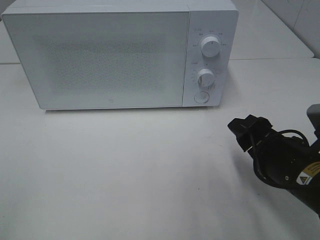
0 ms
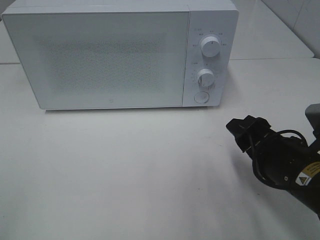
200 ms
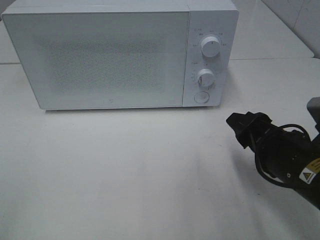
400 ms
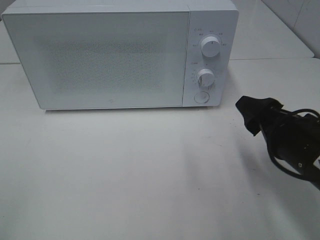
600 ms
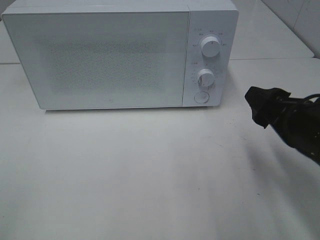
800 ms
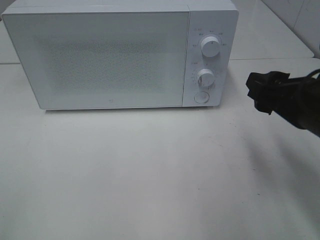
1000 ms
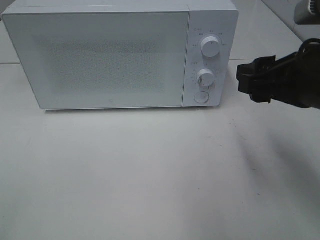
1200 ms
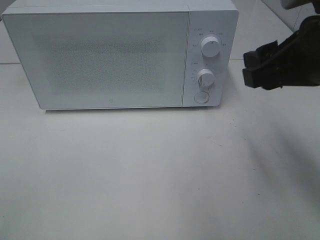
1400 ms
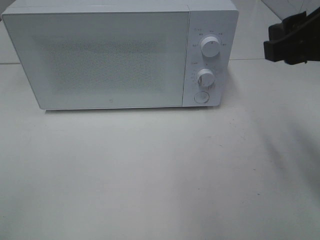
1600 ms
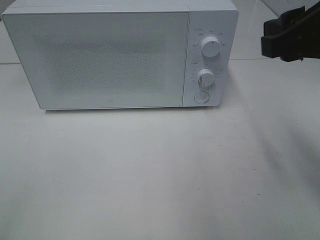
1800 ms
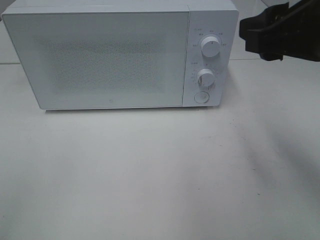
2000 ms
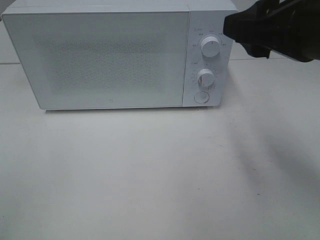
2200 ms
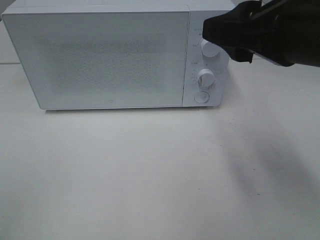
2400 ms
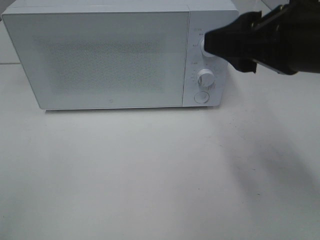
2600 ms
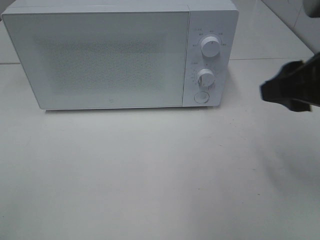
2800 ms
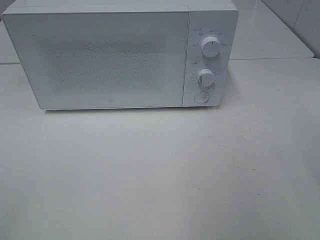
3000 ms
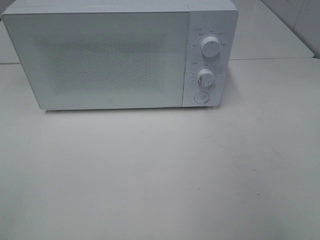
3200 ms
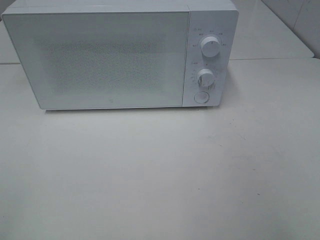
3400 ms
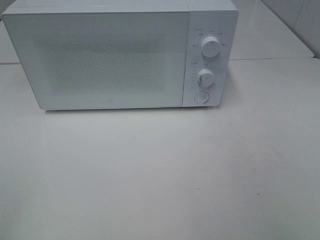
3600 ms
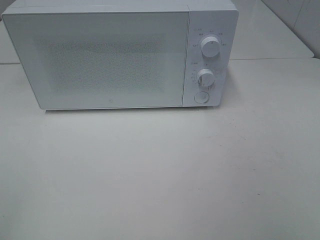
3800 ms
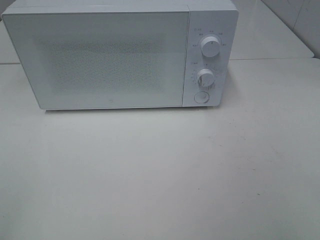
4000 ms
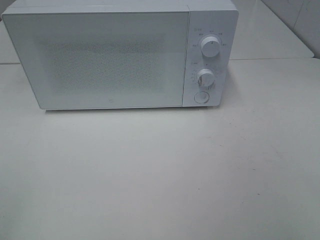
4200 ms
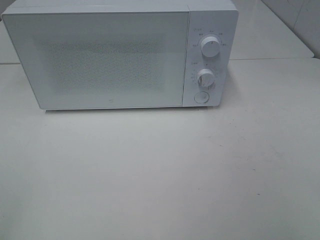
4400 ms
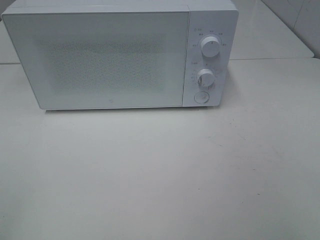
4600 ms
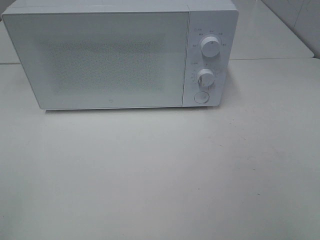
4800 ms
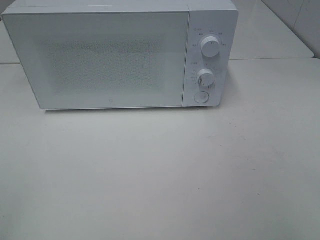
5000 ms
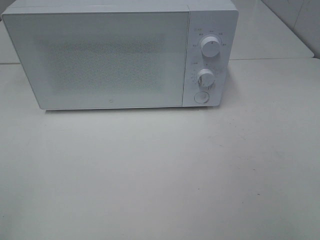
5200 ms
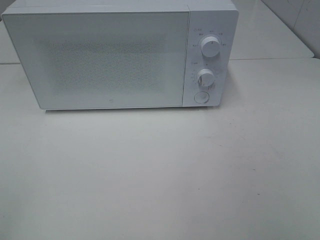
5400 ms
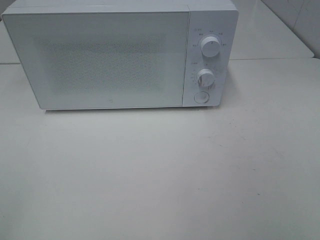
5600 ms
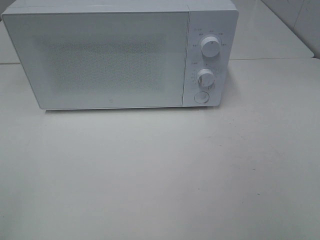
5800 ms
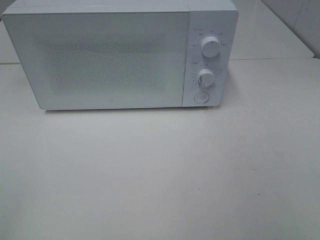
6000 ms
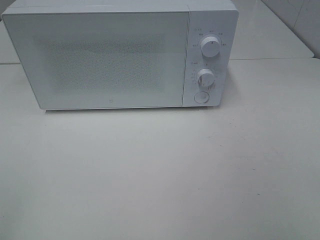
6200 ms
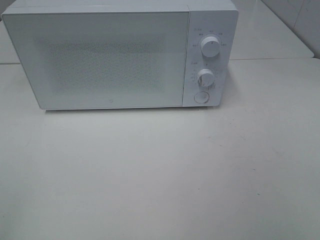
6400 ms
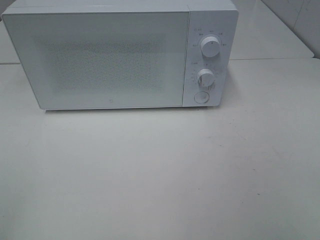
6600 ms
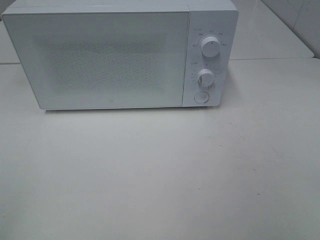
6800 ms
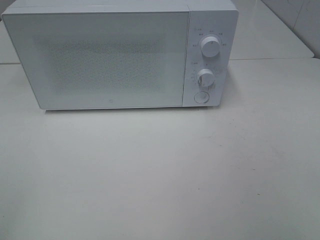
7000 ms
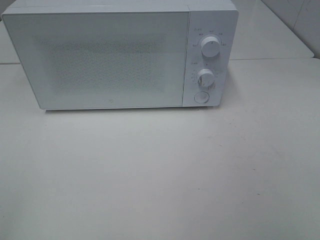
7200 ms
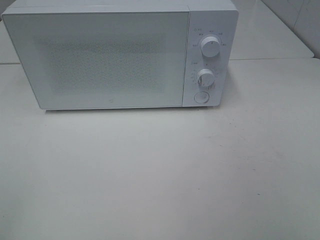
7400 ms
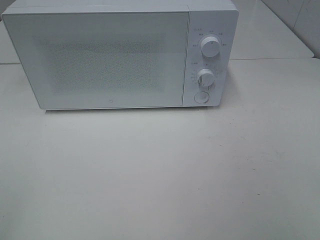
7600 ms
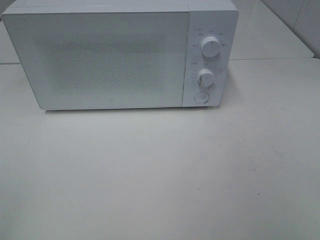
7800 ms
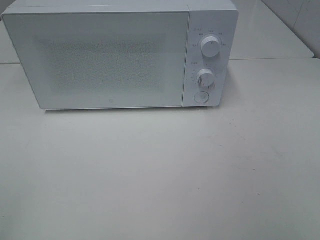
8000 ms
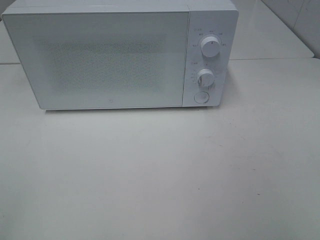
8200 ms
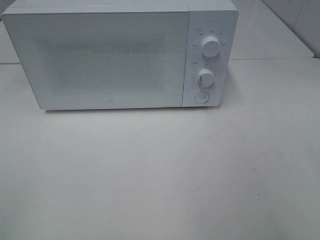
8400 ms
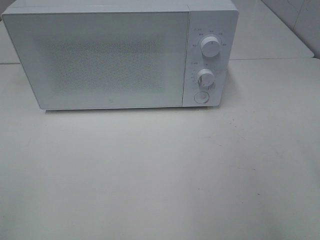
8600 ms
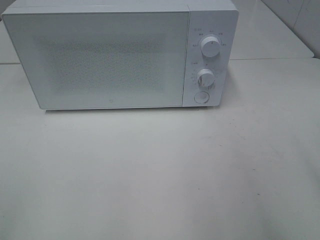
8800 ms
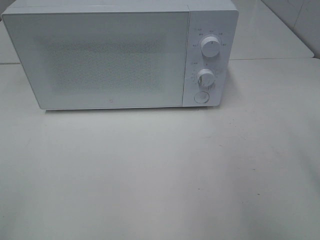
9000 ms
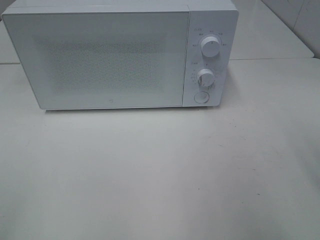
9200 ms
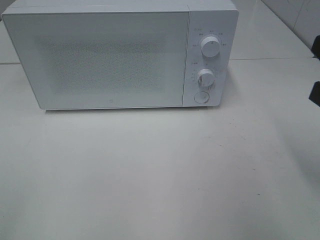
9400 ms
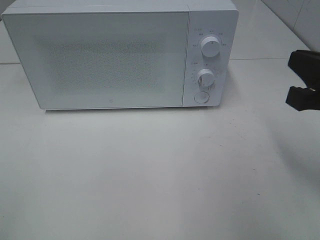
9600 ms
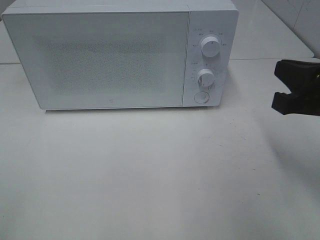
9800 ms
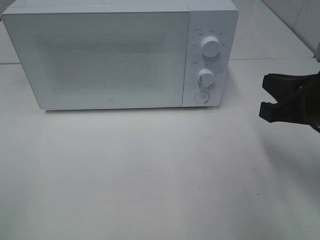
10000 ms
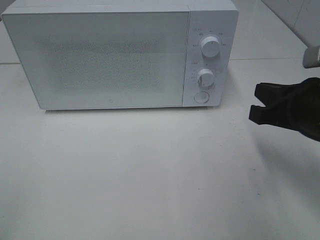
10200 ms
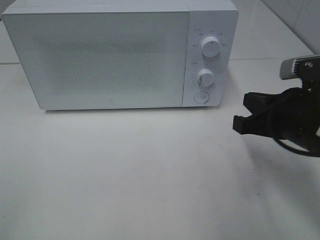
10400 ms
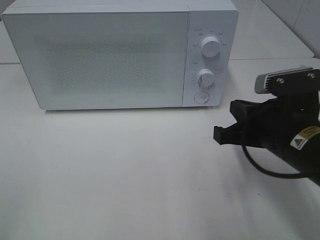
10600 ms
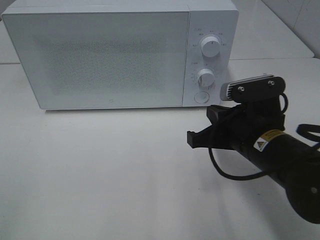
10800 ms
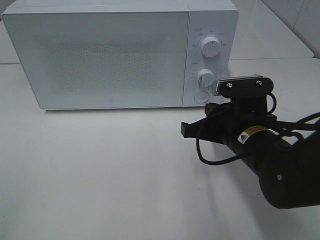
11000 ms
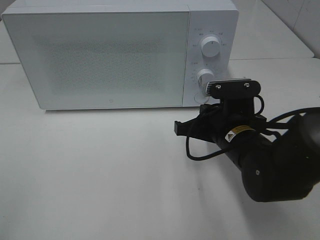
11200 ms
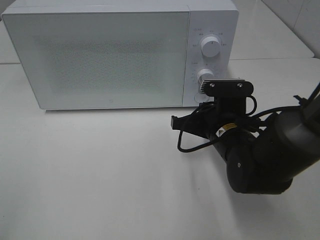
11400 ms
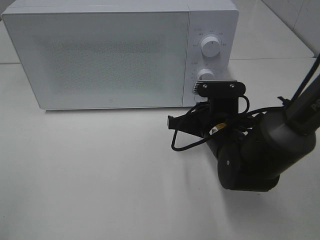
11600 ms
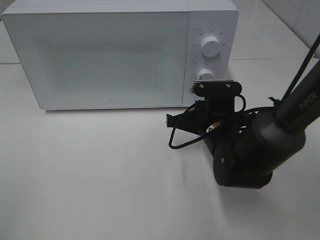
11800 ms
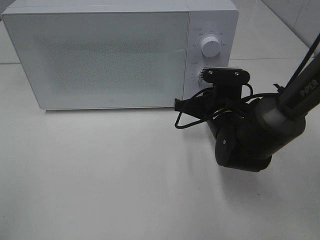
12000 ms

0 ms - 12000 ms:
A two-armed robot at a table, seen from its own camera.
Task of the whole recording: Heat Sandwich.
0 ms - 1600 ms: The right gripper goes about 20 cm upward.
1600 ms - 3000 ms: The right gripper changes place by approximately 5 cm, and closes its fingers.
6000 ms - 7600 ms: Neither gripper changes place.
9000 ms - 10400 ms: The right gripper shifts roughly 15 cm downward, forward and to the left, and closes.
10400 ms - 12000 ms: The right gripper moves forward, downward and to the left, approximately 15 cm.

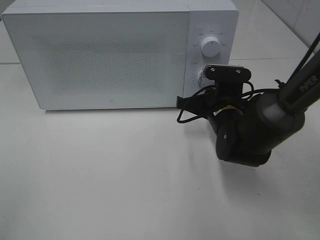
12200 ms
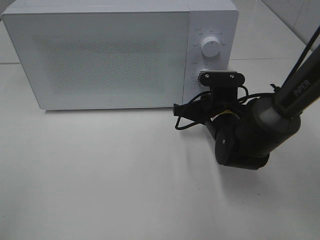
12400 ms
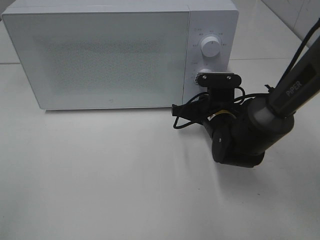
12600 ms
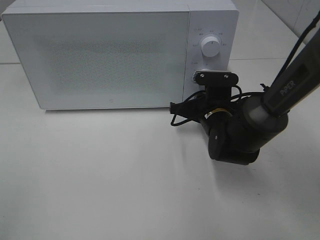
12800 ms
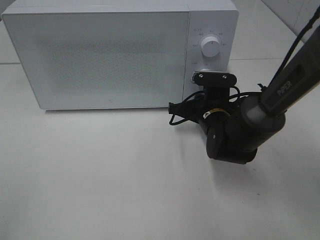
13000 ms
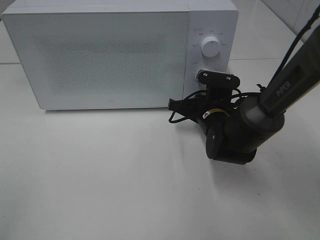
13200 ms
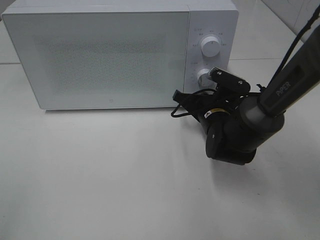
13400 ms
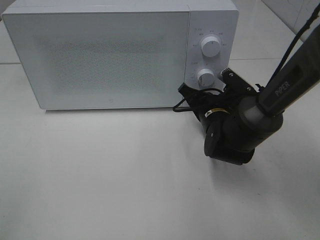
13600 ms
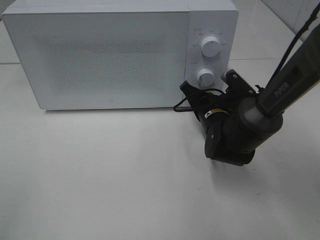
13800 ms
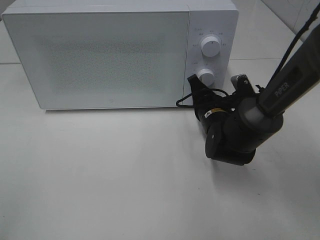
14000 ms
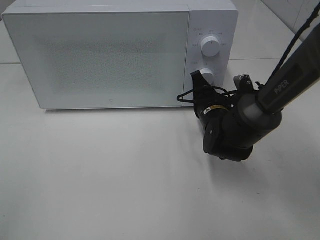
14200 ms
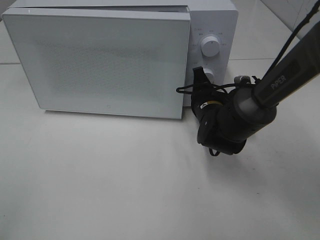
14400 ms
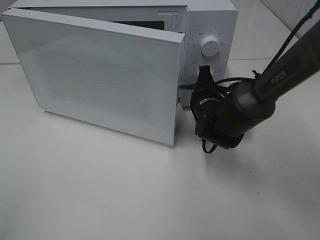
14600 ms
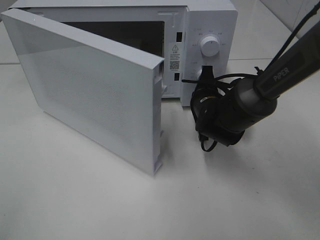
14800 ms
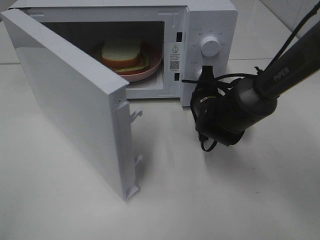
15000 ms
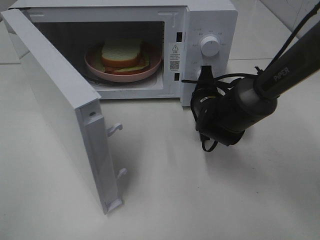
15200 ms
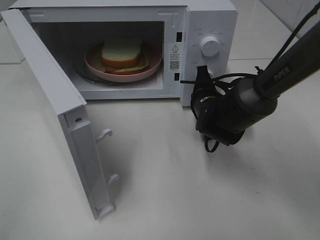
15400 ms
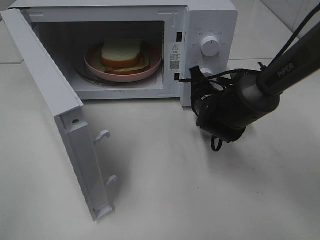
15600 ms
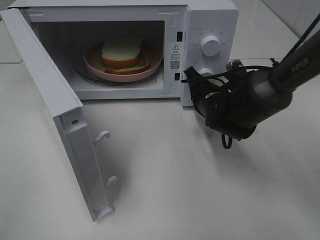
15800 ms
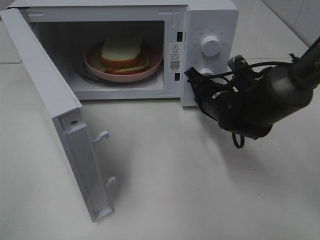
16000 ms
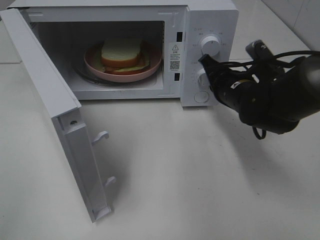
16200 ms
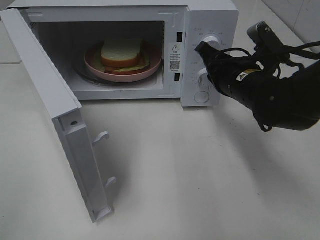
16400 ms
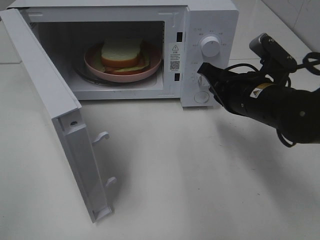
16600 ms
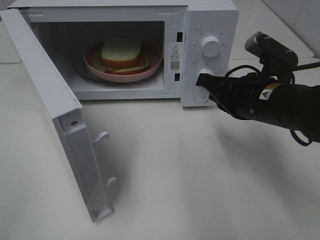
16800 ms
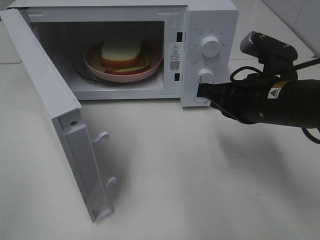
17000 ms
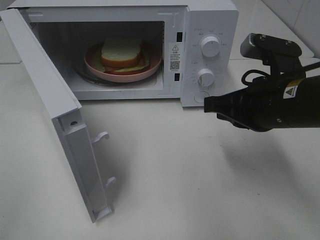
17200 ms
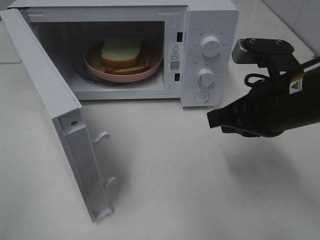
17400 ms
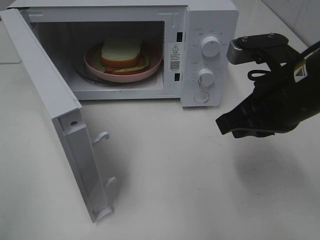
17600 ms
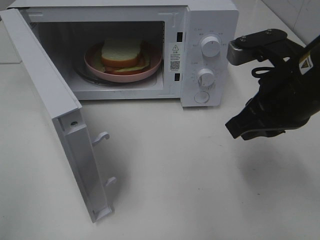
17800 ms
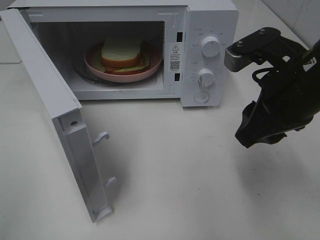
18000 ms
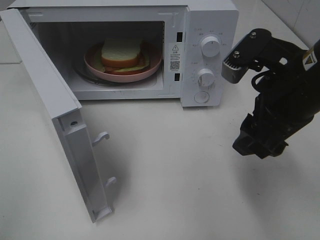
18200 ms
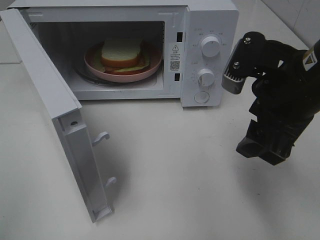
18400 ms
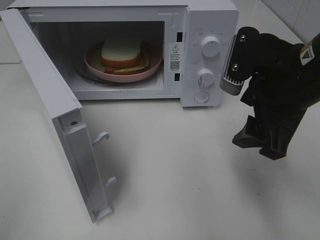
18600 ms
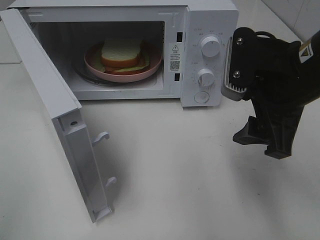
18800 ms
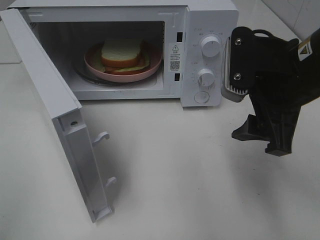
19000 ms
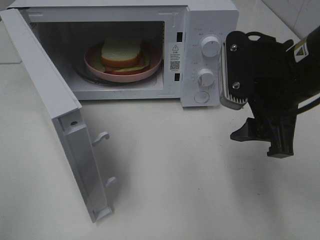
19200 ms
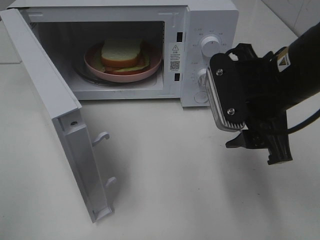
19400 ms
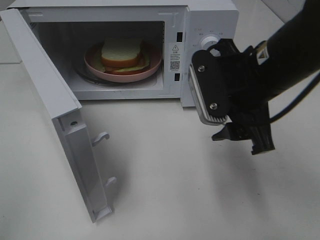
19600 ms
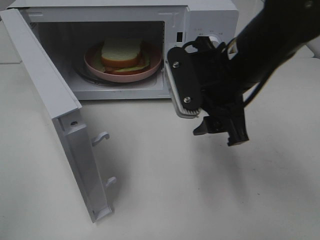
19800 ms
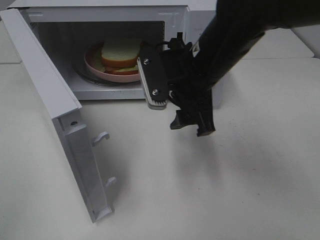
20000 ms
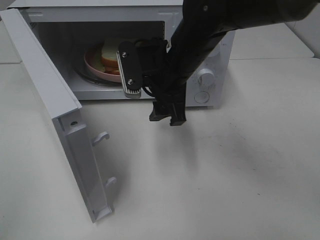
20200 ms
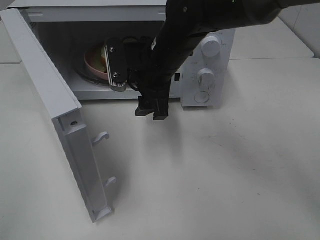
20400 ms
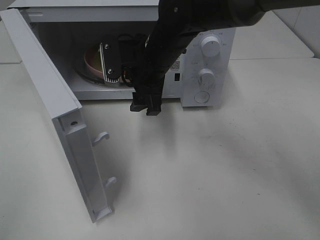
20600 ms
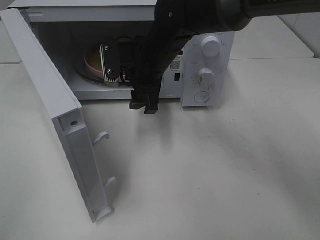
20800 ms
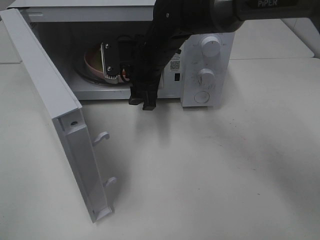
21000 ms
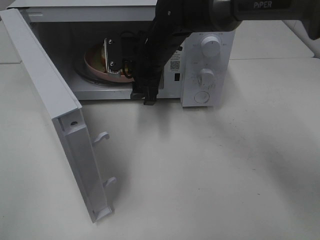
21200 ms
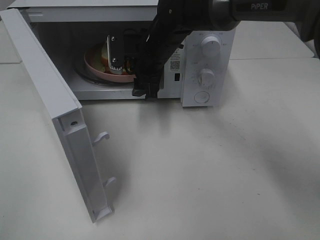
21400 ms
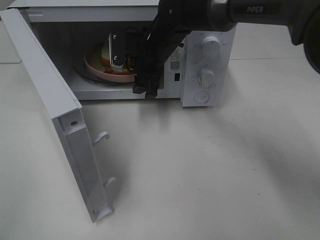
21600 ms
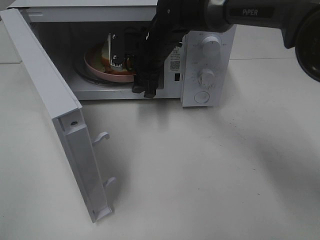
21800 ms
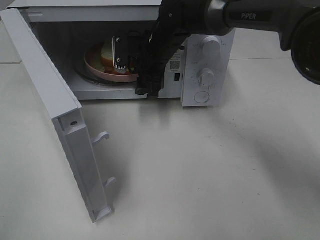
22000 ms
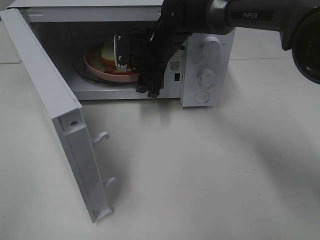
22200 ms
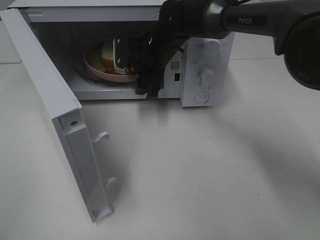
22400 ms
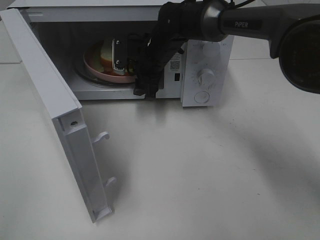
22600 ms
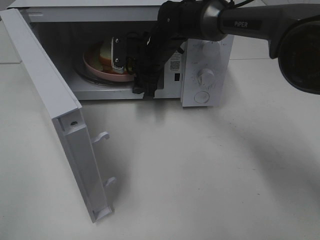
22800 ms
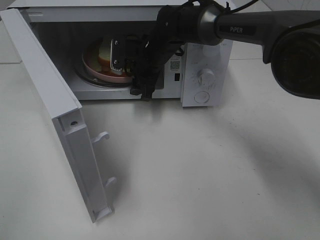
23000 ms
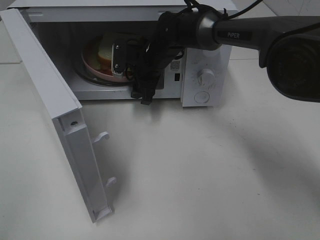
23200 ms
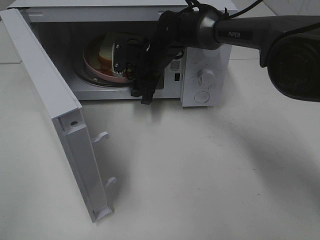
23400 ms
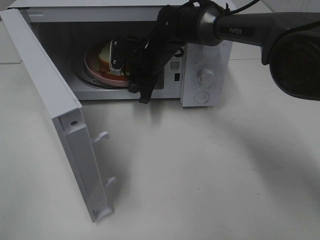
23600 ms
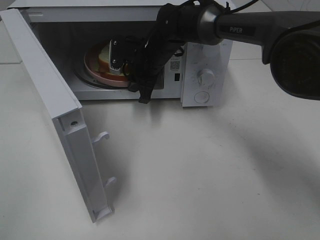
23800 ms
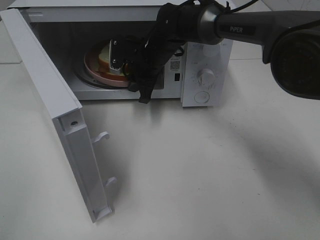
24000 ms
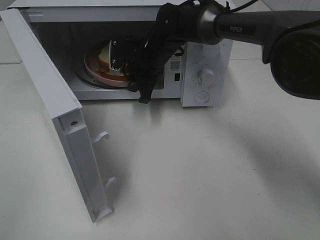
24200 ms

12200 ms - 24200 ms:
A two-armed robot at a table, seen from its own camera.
Task of the whole recording: Heat Sandwich.
Step, 12200 ms - 16200 ms: Right hand: press the switch.
15200 ms - 16600 ms: The right gripper moves backward and upward, some 10 cm.
16600 ms - 18200 ms: The right gripper is displaced upward and backward by approximately 10 cm, and opens.
18200 ms - 19800 ms: The right gripper goes approximately 5 cm to the left.
19800 ms - 21200 ms: The right gripper travels forward and to the left by roughly 20 cm.
21200 ms - 22600 ms: The right gripper shifts by roughly 5 cm.
22600 ms - 24200 ms: The right gripper closes up.
